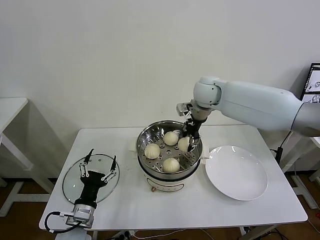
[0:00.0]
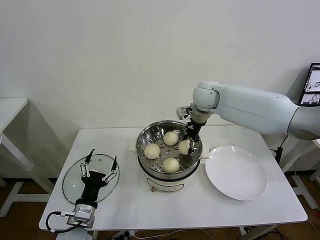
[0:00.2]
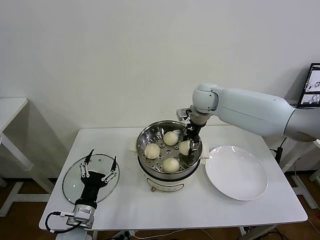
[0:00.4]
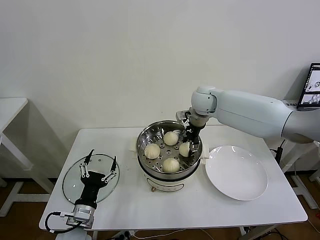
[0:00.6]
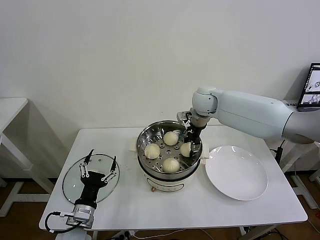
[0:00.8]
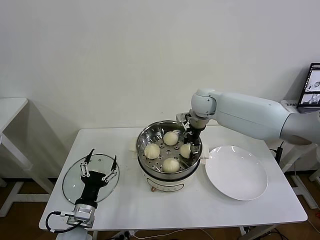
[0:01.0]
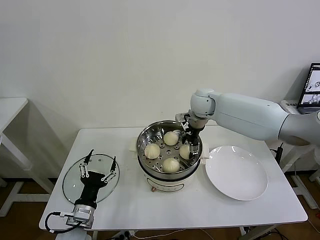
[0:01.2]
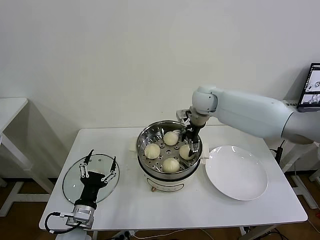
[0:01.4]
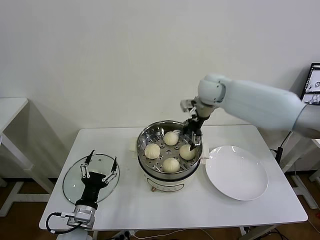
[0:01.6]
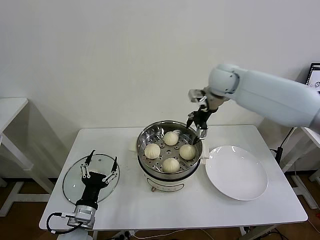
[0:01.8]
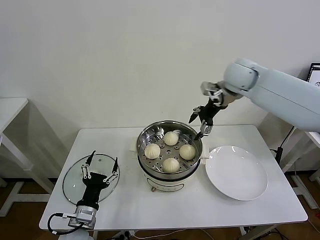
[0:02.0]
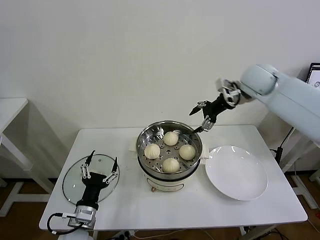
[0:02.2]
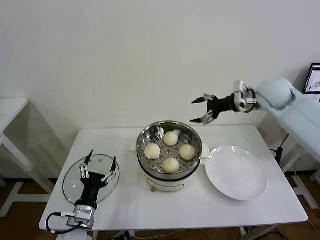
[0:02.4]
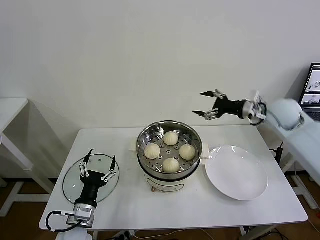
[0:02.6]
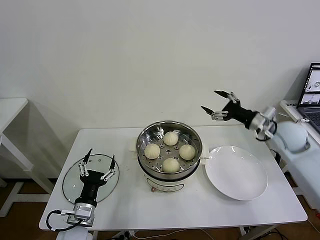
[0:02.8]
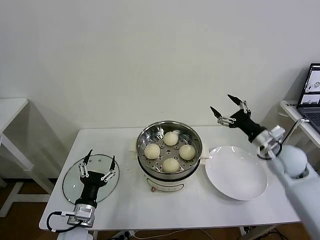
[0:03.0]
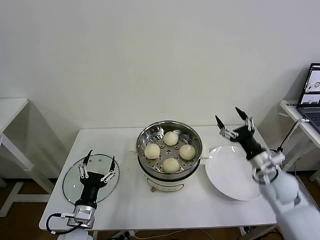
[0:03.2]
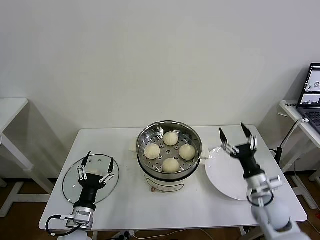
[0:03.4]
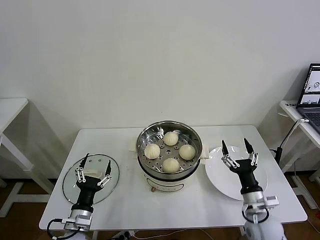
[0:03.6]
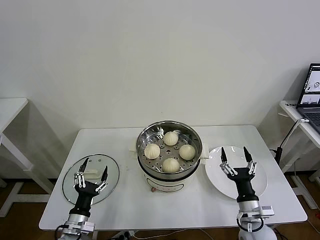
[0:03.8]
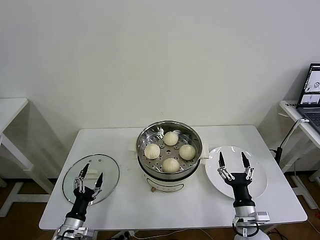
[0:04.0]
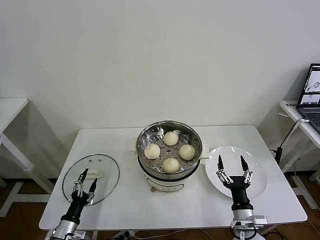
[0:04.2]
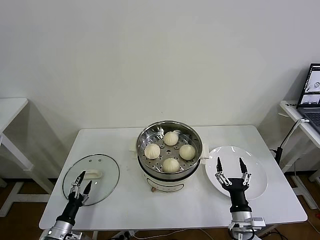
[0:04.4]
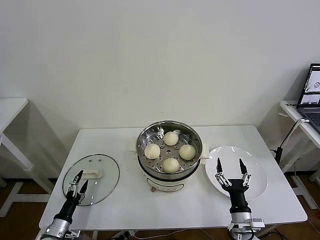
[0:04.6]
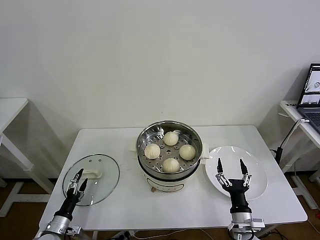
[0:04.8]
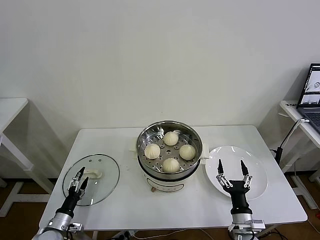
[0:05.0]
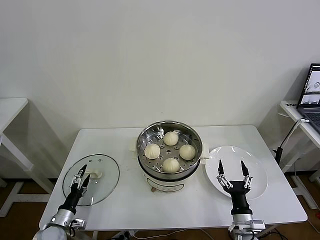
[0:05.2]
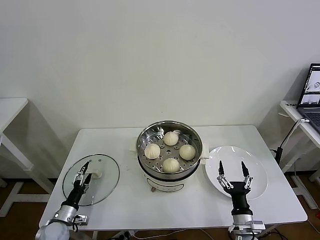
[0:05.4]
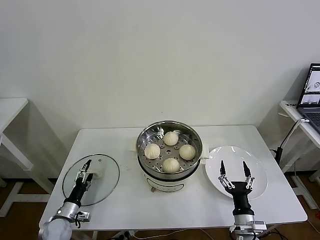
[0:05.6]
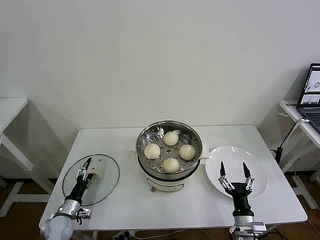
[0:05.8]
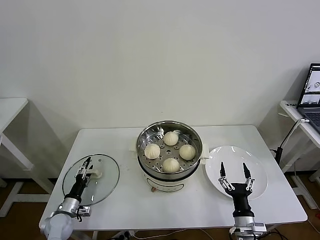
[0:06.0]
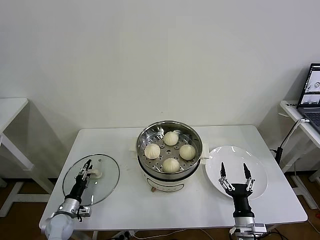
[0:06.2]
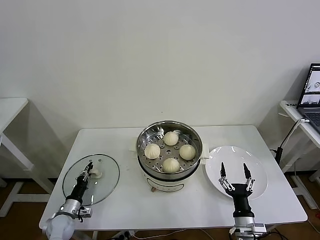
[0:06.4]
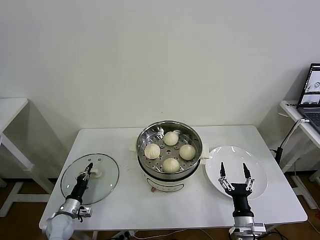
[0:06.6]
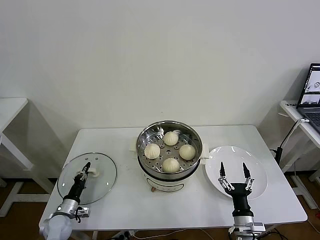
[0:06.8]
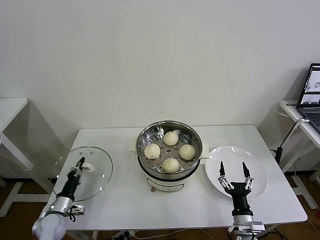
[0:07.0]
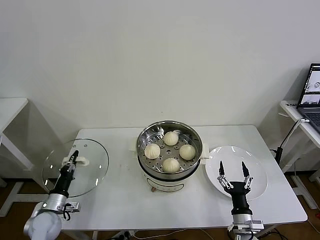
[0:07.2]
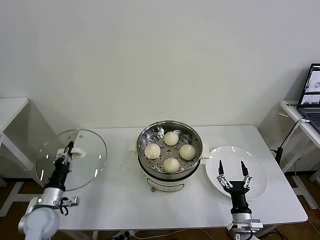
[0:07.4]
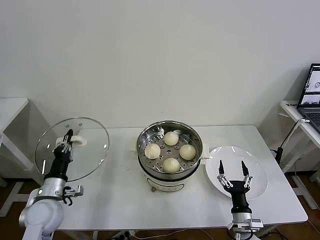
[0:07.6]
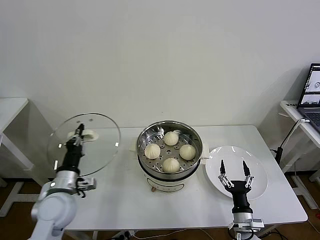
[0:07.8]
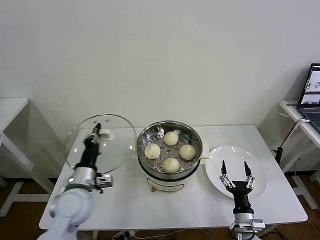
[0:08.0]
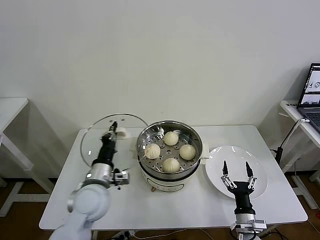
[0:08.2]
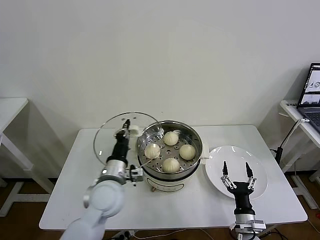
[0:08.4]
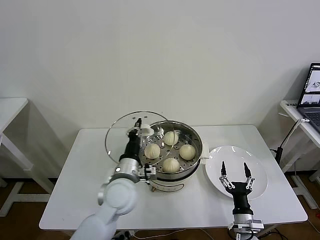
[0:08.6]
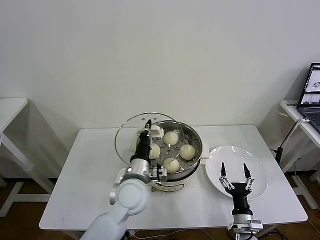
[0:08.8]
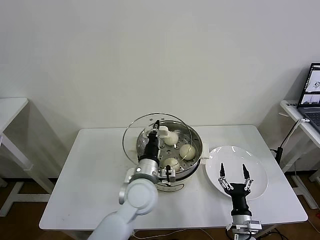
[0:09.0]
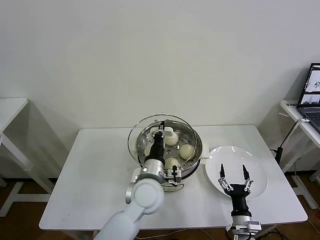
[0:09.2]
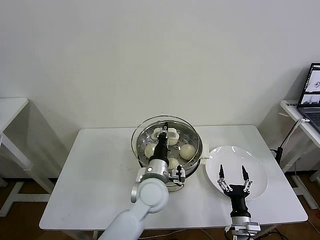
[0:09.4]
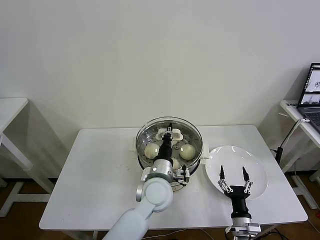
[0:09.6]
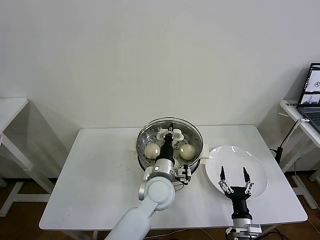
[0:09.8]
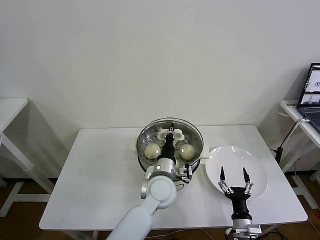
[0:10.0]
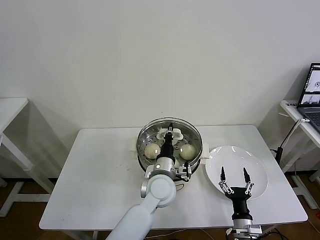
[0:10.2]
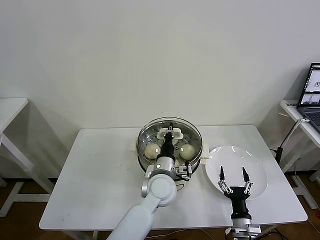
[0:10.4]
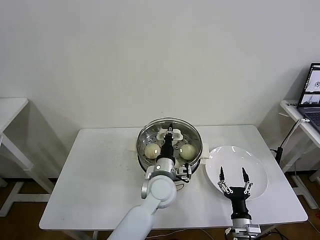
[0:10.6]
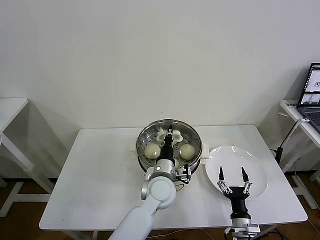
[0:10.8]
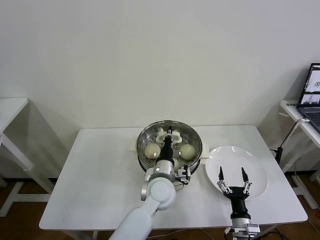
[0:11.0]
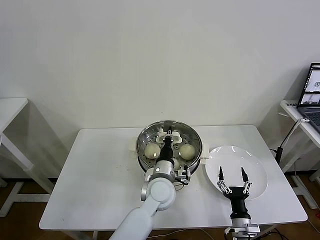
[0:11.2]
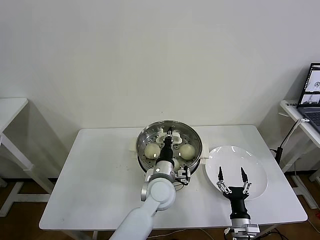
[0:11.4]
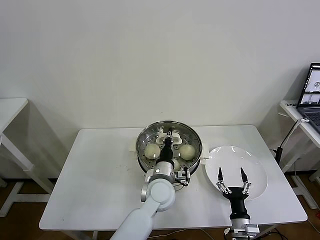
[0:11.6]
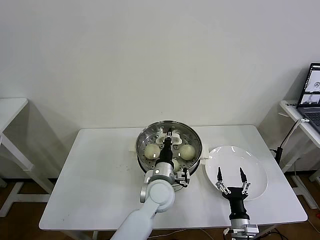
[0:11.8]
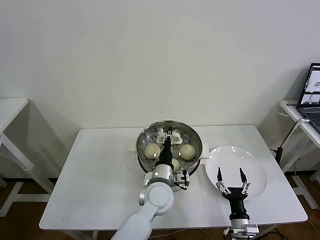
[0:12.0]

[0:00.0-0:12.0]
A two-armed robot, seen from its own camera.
Task of the whole recording: take steamed baozi put them in steamer then cover it.
Step, 0:01.6 to 0:06.6: Grasp the pot lid with left gripper.
0:00.0 to 0:01.6: The right gripper opens.
0:01.6 to 0:03.0: The right gripper travels to the right, backward and downward by about 30 cm.
0:03.0 to 0:04.4: The left gripper goes some 15 cm downward and to the left, while the right gripper is displaced backward, downward and to the left by some 30 cm.
0:04.4 to 0:06.0: The left gripper heads forward, covering some 10 cm.
0:06.0 to 0:07.6: The left gripper travels upward by approximately 15 cm, and closes up.
0:07.6 to 0:09.0: The left gripper goes about 30 cm to the right.
0:09.0 to 0:10.4: The left gripper shifts about 5 cm to the right.
0:10.4 to 0:12.0: The grippers make only small movements.

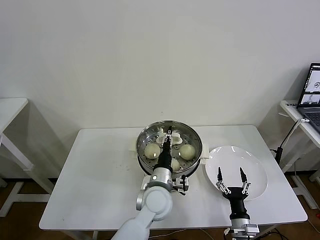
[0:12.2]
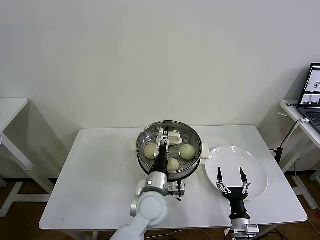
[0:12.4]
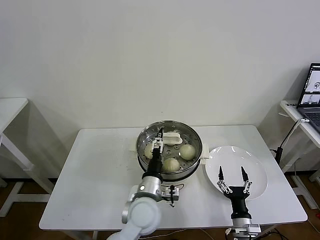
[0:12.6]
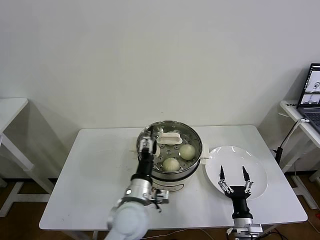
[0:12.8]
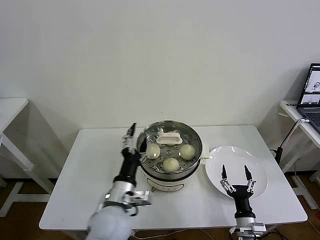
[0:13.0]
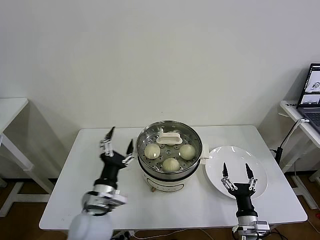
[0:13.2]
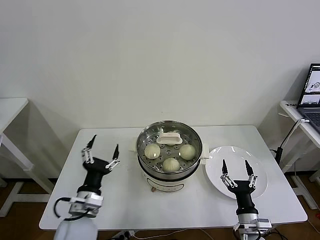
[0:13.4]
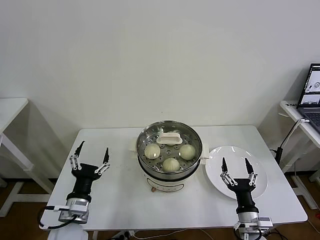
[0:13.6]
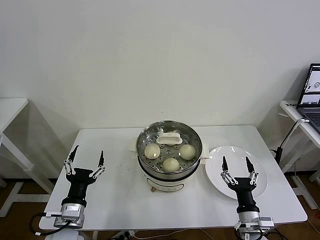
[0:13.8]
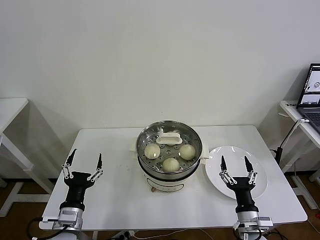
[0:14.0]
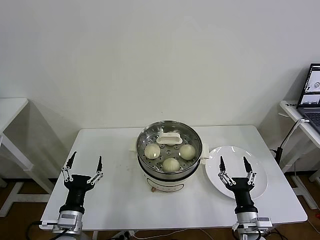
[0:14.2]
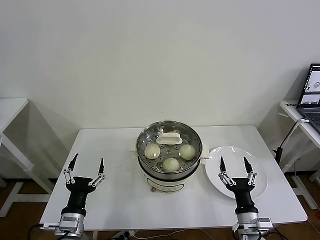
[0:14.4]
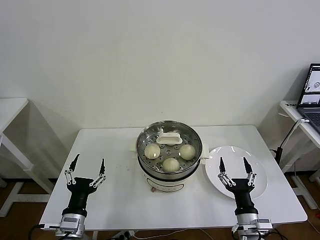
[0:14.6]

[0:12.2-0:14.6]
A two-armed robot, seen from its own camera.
Task of the whole recording: take steamed baozi put them in steamer then cover it.
0:12.2 to 0:13.4: The right gripper is displaced upward by roughly 5 cm. The left gripper moves to the left and backward, about 20 cm, and opens up.
0:13.4 to 0:14.6: The left gripper shifts roughly 5 cm backward.

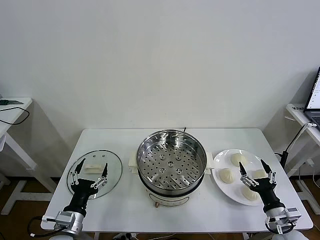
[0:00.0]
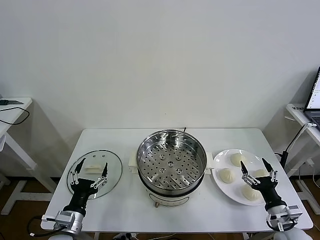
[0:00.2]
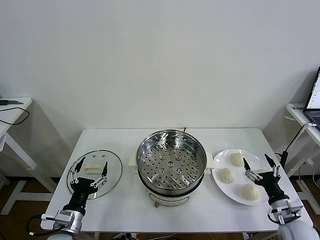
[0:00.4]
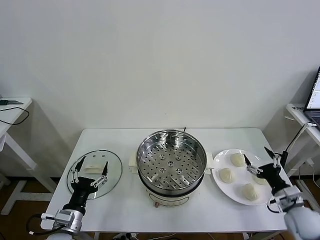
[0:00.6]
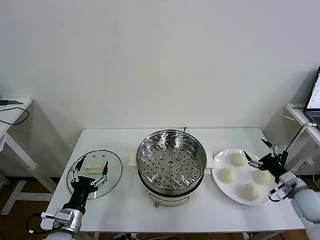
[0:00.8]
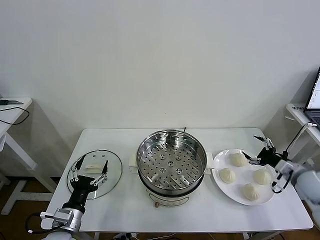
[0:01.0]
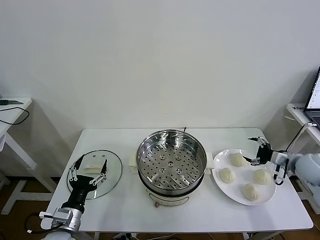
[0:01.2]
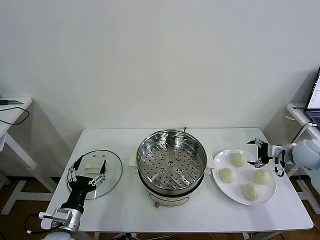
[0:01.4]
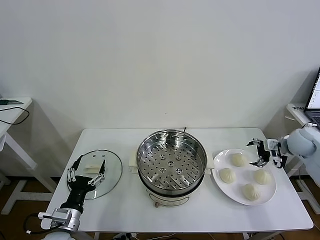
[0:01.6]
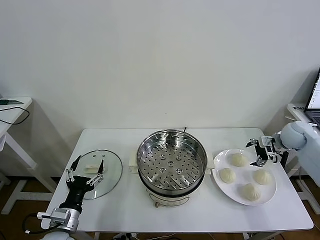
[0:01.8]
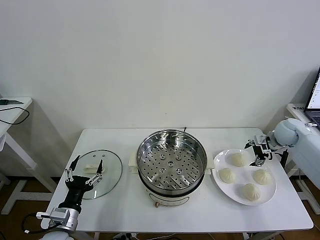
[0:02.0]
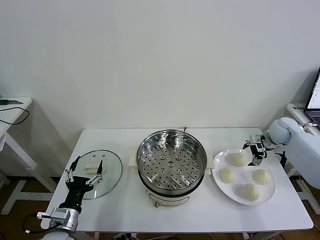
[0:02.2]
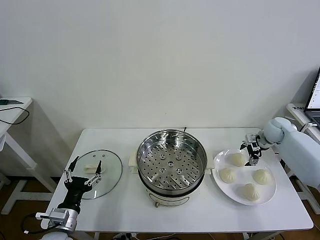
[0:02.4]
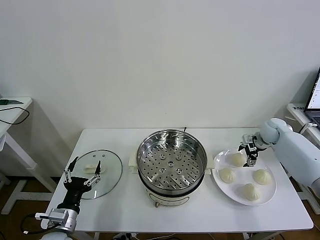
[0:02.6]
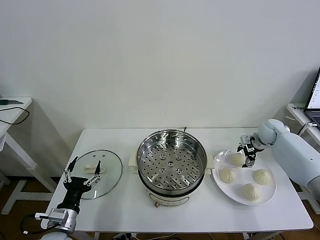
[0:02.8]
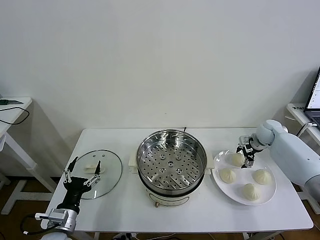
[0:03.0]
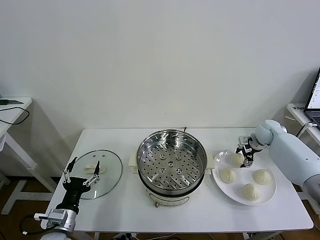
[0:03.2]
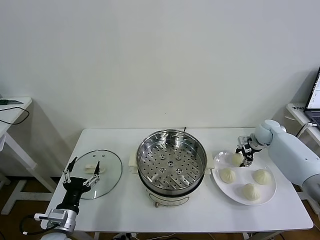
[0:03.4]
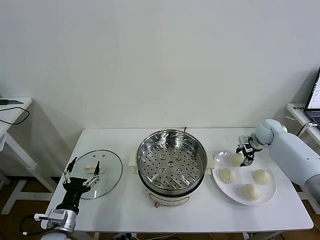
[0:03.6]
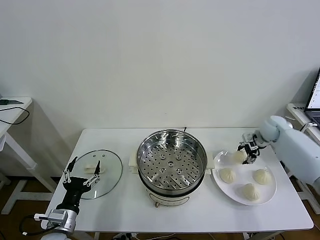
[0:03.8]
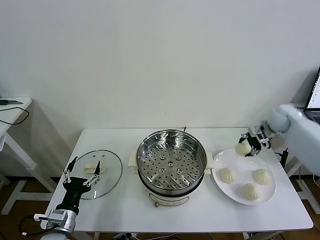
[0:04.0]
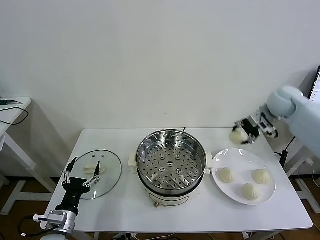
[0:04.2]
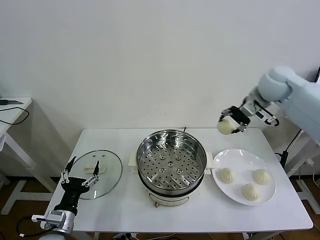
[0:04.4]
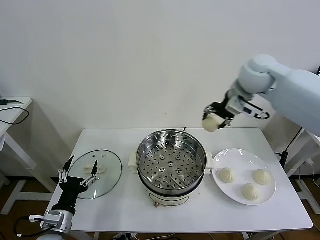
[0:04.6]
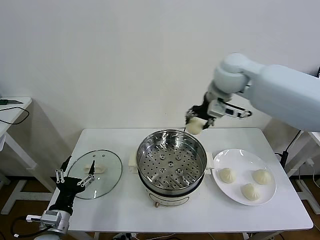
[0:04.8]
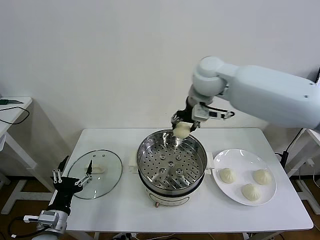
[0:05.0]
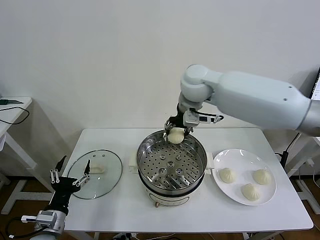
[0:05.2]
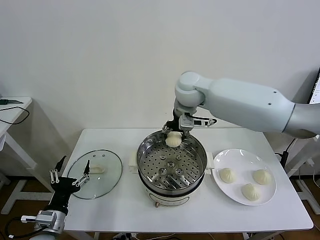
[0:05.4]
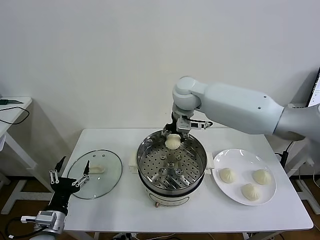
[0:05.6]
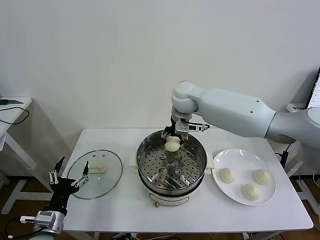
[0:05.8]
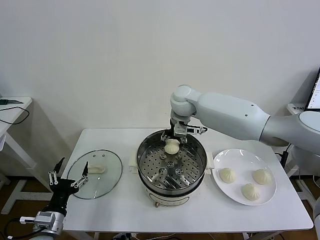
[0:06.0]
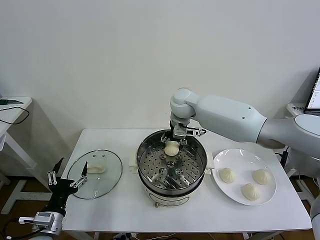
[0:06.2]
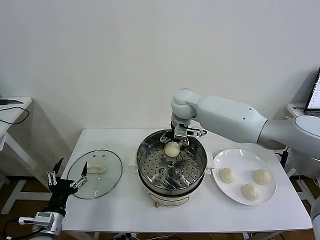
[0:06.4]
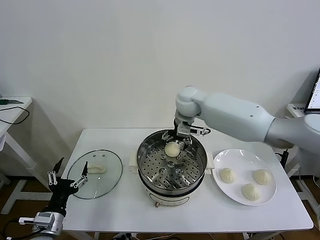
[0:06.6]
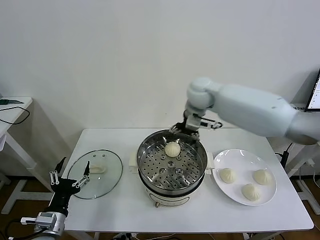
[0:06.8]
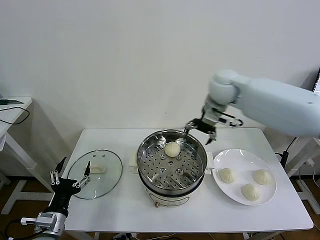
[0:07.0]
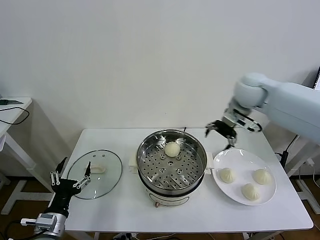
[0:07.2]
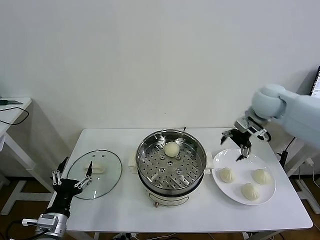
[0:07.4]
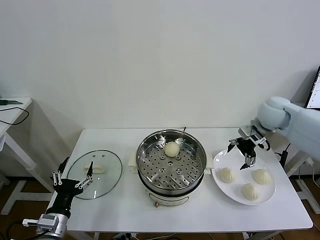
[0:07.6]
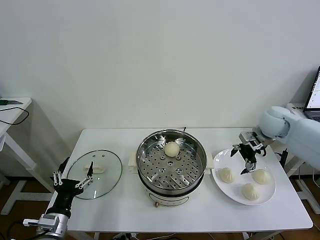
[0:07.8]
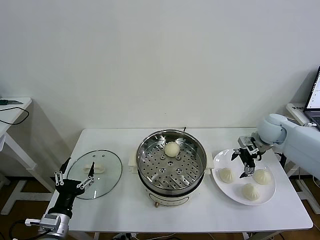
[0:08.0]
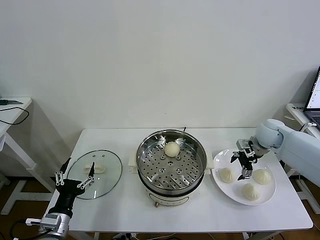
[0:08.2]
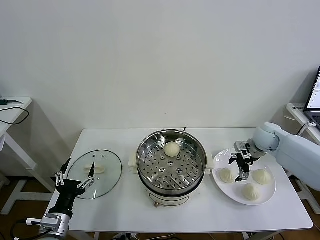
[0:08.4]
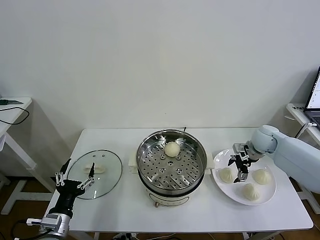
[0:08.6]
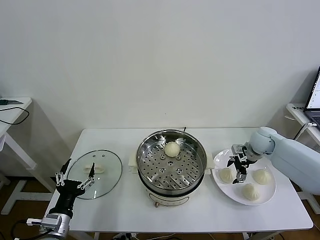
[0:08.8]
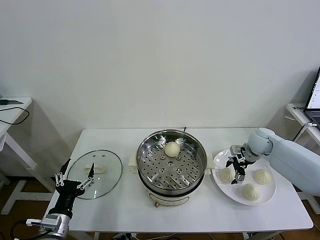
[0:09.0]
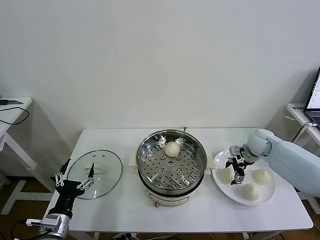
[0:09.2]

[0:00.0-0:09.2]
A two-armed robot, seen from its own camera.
Task of the whole recording: take steamed baozi put them in steamer then cover it.
Step, 0:00.0 to 0:03.4: Grasp the baozi in the plate with right gripper.
Step, 0:03.6 to 0:06.4: Place the baozi on the steamer with right gripper.
0:01.6 to 0:03.0: The right gripper goes about 10 cm forward and downward.
0:03.0 to 0:04.6: The right gripper is displaced upward and to the left by roughly 35 cm, and closes up.
0:04.6 to 0:06.2: The right gripper moves to the left and downward, roughly 20 cm.
0:06.2 to 0:07.6: The right gripper heads to the right, covering roughly 30 cm, and opens.
0:07.6 to 0:09.2: The right gripper shifts some 15 cm downward.
